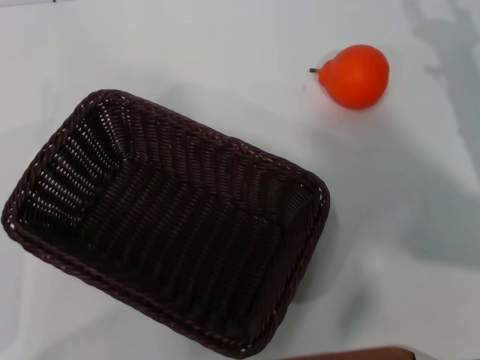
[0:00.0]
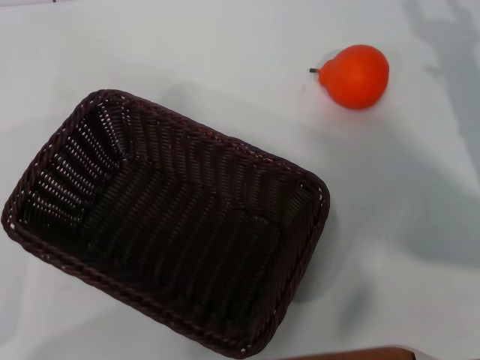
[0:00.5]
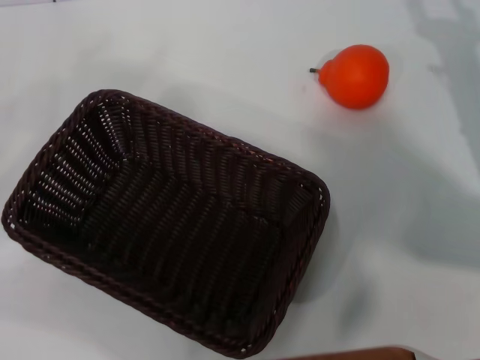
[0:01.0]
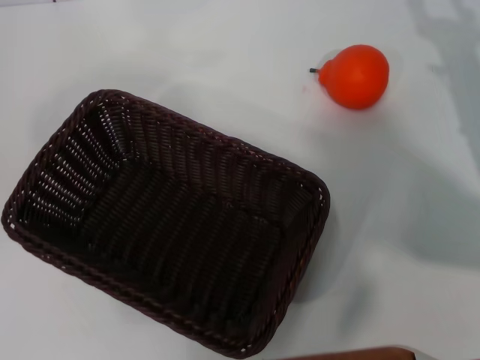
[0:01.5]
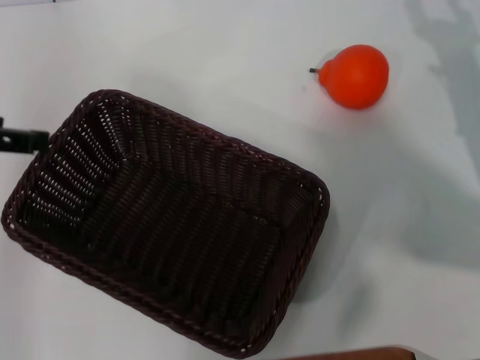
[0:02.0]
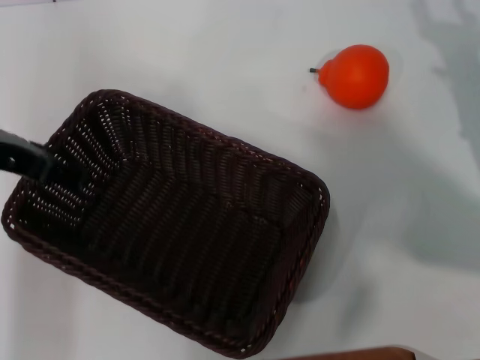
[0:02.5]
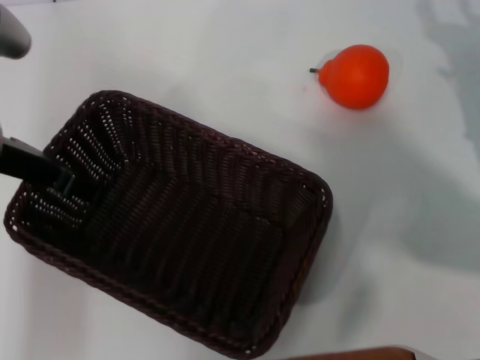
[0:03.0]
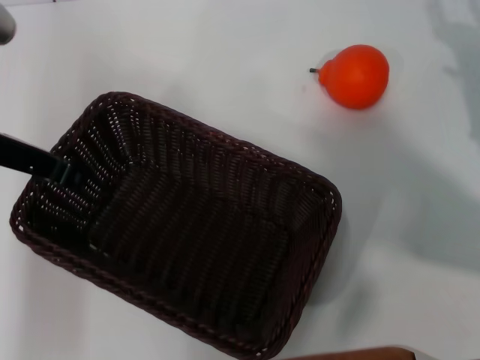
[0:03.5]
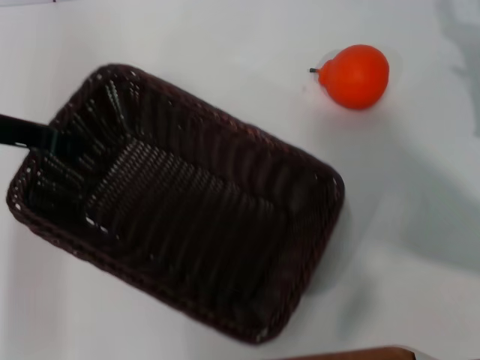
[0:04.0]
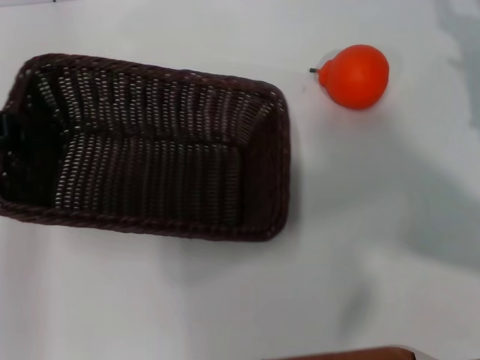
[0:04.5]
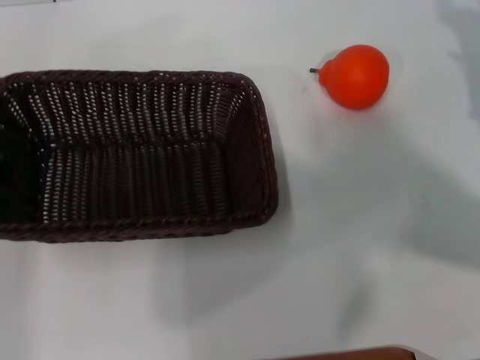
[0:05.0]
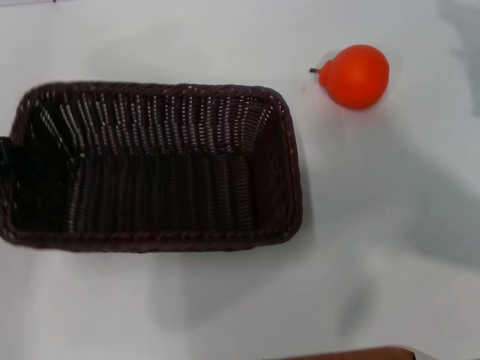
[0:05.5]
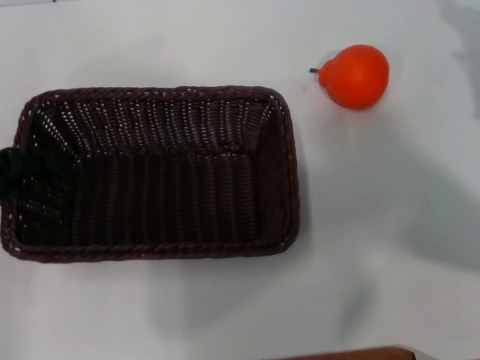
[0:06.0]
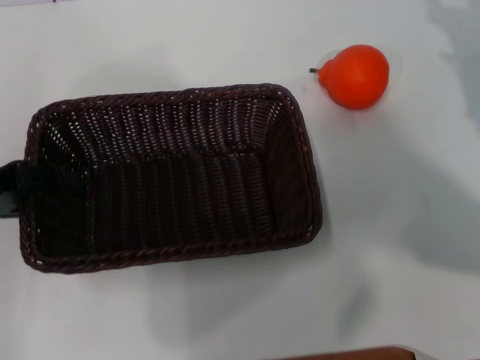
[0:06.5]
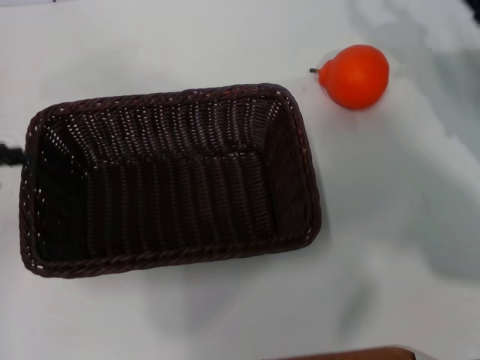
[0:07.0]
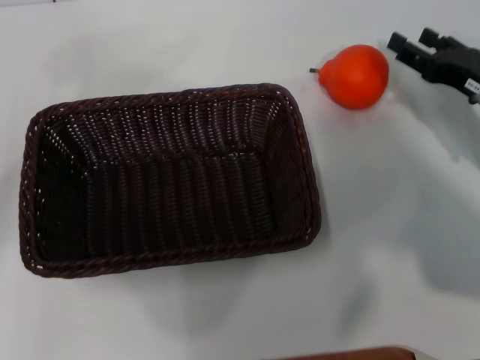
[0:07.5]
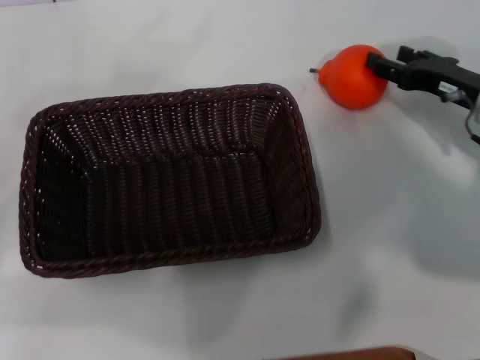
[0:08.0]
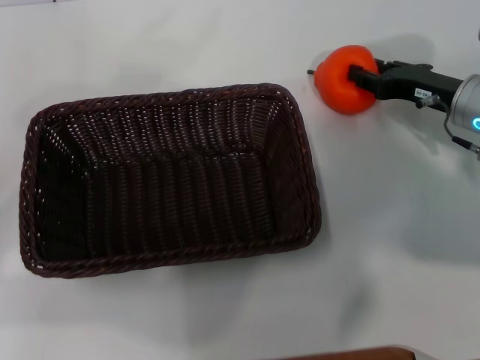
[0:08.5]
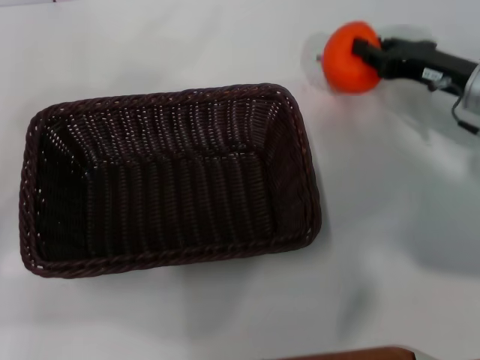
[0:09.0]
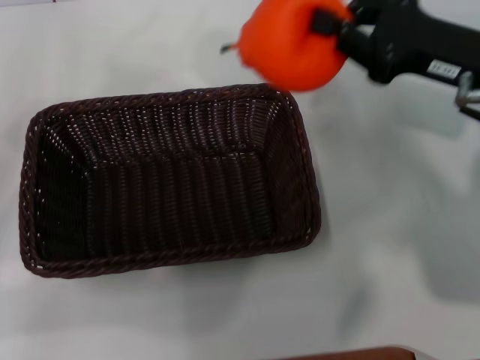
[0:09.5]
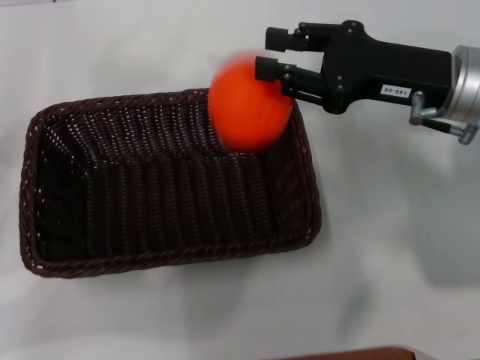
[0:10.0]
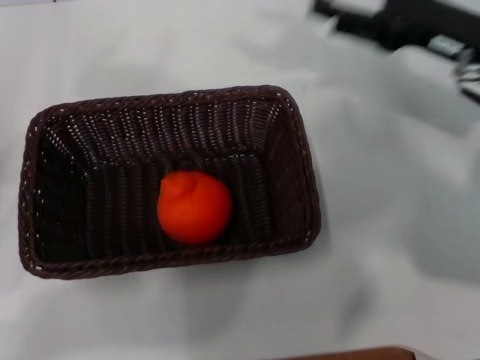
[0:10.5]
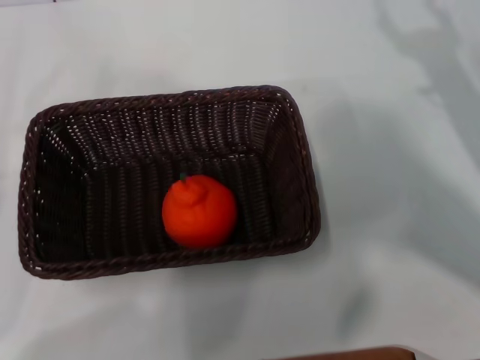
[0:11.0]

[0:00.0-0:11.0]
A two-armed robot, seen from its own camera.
Task of the whole recording: the left gripper pick up the black basket and place it horizontally in the middle of the table, the right gripper pick up the orange and place it into the black basket.
Step, 0:00.0 to 0:04.0: Pick up the dark basket with the left gripper.
Step, 0:04.5 to 0:06.5: Place the dark basket in the center of view with the left gripper.
Step, 0:07.0 to 0:09.0: Pick up the orange with the right gripper.
Step, 0:09.5 to 0:10.0: Place the orange into the dark basket with the right gripper.
0:00.0 to 0:02.0: The left gripper heads upward and forward, covering approximately 20 cm.
0:02.0 to 0:03.5: The left gripper shifts approximately 5 cm to the right, and closes its fingers.
0:03.5 to 0:05.5: The left gripper heads to the left, covering roughly 5 cm.
0:05.5 to 0:07.5: The left gripper moves to the left, some 10 cm, and opens, while the right gripper changes place by roughly 5 cm.
0:07.5 to 0:09.0: The right gripper closes up.
0:09.0 to 0:11.0: The right gripper shifts about 10 cm backward and to the right, and opens, while the left gripper shifts some 5 cm downward.

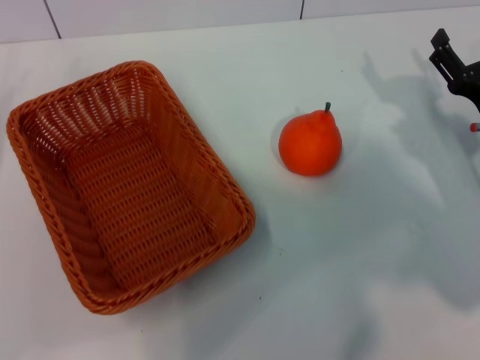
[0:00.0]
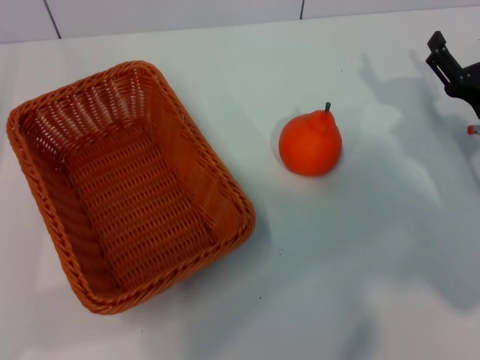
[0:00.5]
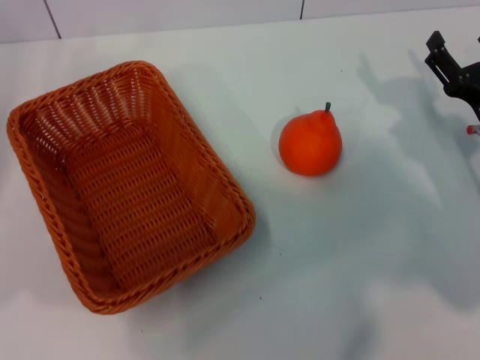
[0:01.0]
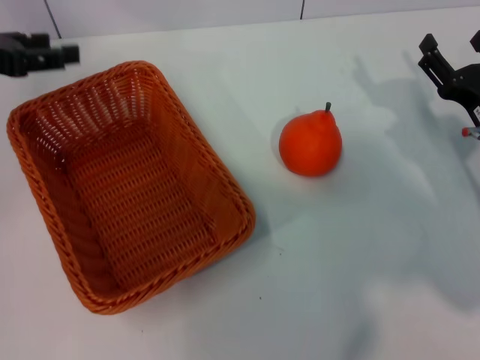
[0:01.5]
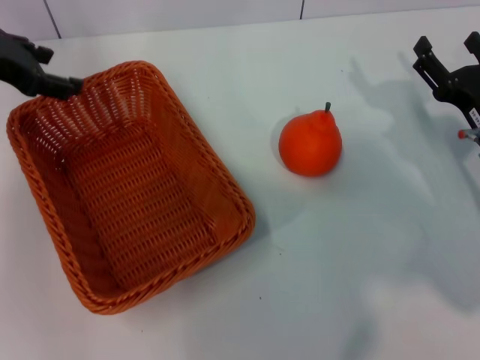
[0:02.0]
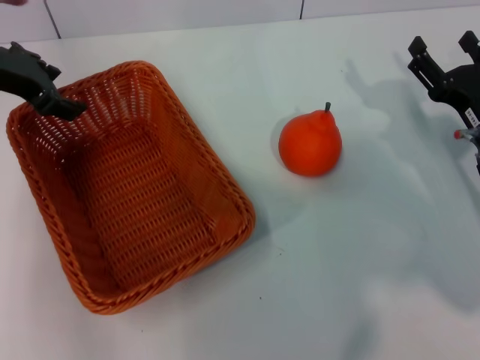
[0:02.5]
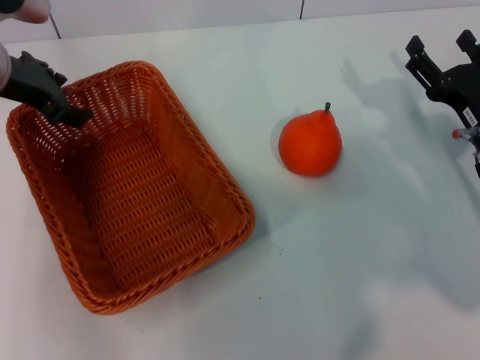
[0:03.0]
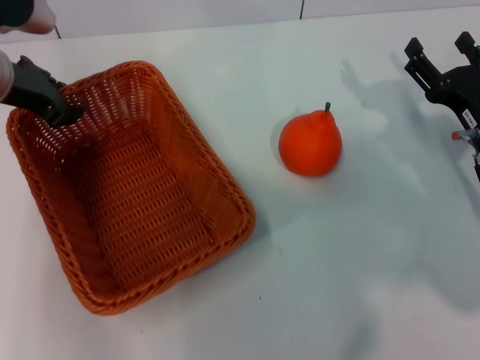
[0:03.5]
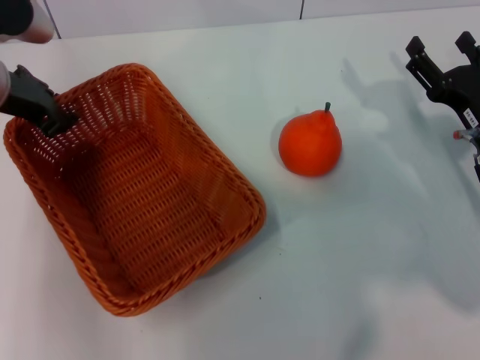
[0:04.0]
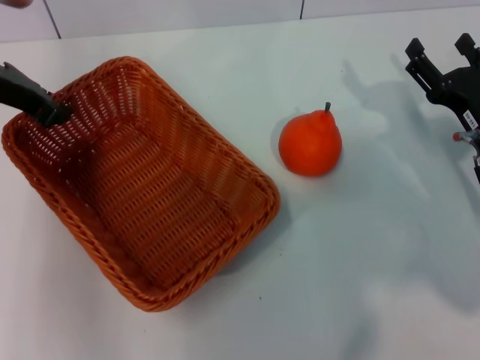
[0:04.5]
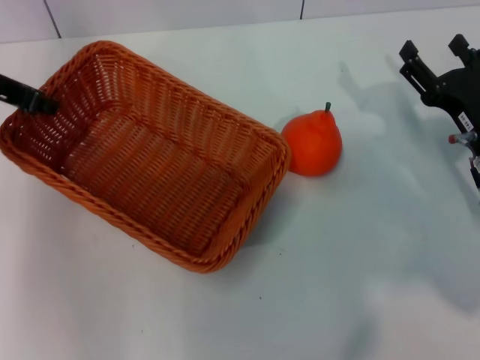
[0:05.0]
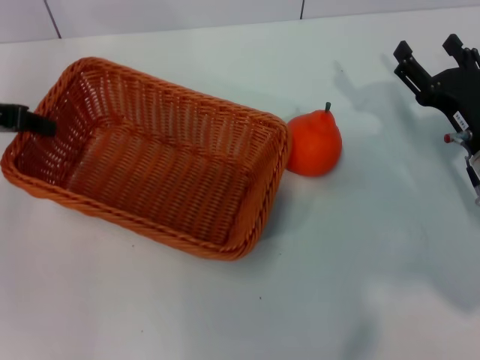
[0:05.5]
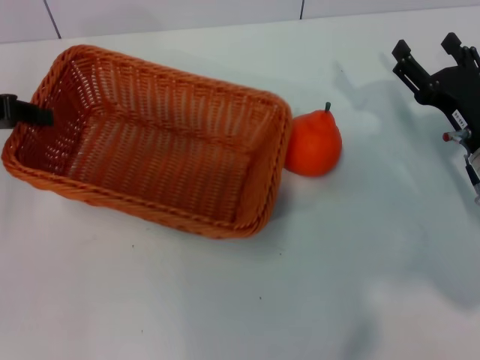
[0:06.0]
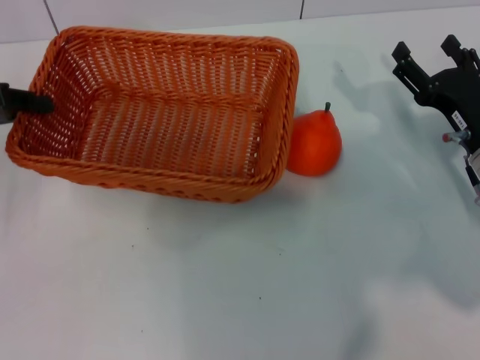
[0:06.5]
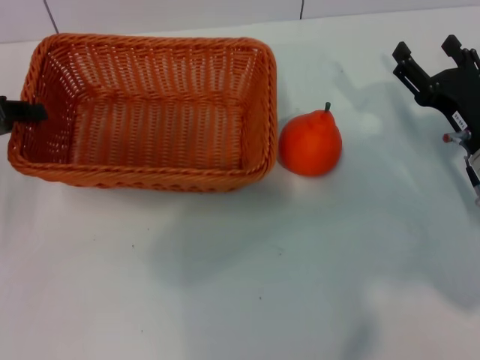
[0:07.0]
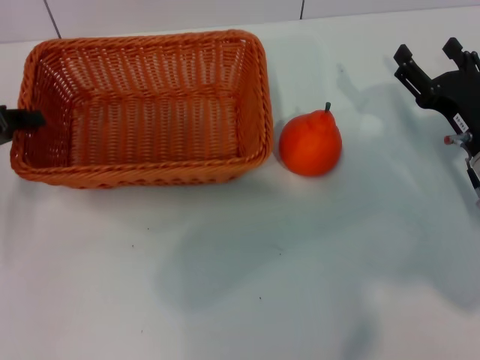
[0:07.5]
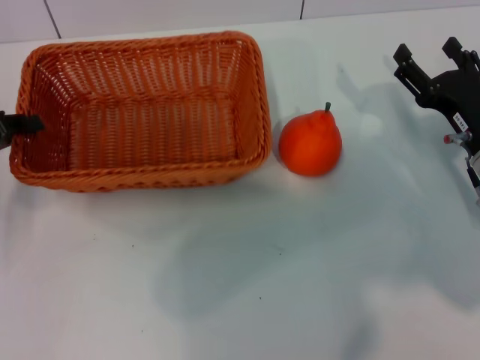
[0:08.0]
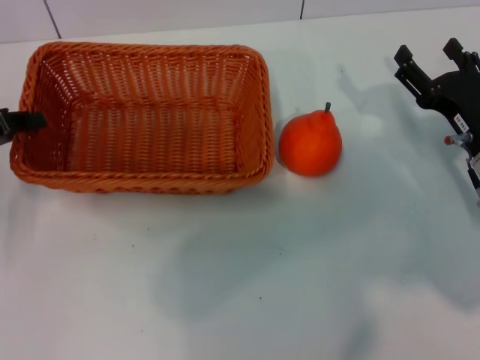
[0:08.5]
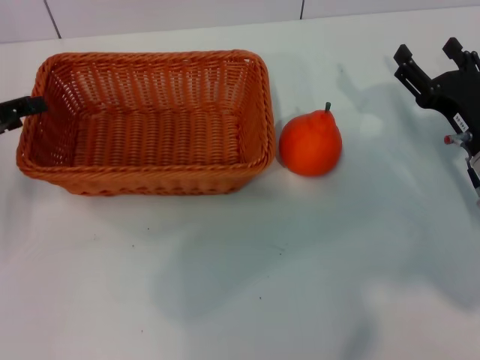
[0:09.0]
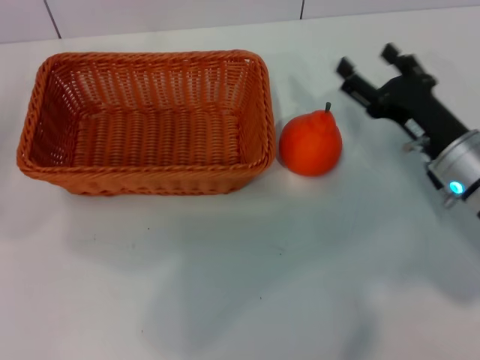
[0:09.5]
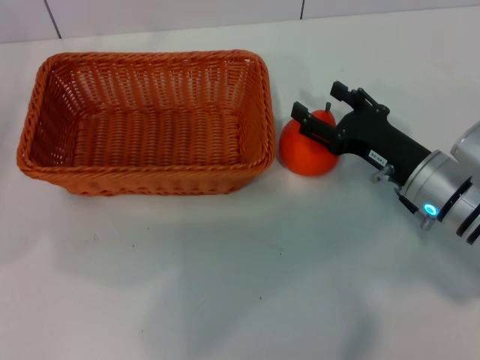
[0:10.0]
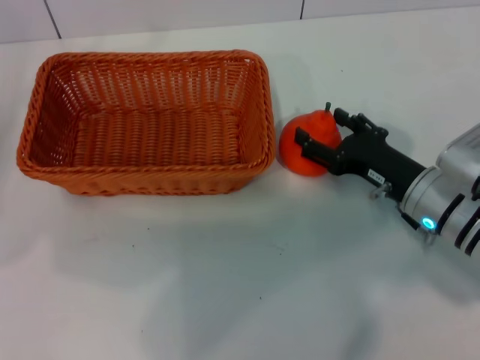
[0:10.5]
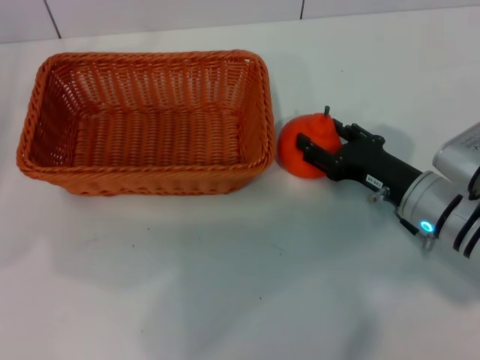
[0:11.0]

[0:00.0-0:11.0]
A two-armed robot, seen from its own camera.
Task of the whole recording: the left gripper pick up the yellow basket and place it horizontally in the middle of the table, the right gripper pick up the orange and place it into the yellow basket.
Step, 0:00.0 to 0:05.0: Pick up the light basket with the left gripper.
Step, 0:05.5 to 0:09.0: Place the light basket in the center of view with the left gripper.
0:00.0 to 0:02.0: The left gripper shifts some 20 cm upward, forward and to the right.
0:02.0 to 0:03.5: The left gripper moves some 5 cm.
0:03.5 to 0:05.5: The left gripper moves to the left, some 10 cm, and closes its fingers.
0:05.5 to 0:07.5: The left gripper shifts some 10 cm backward and downward.
0:07.5 to 0:09.0: The left gripper opens.
0:09.0 to 0:11.0: The left gripper shifts by approximately 5 cm, and opens. Meanwhile the right gripper heads to the left, covering roughly 5 cm.

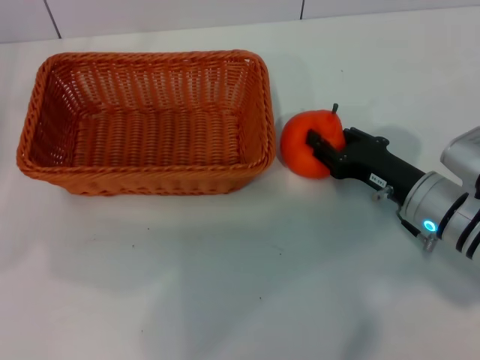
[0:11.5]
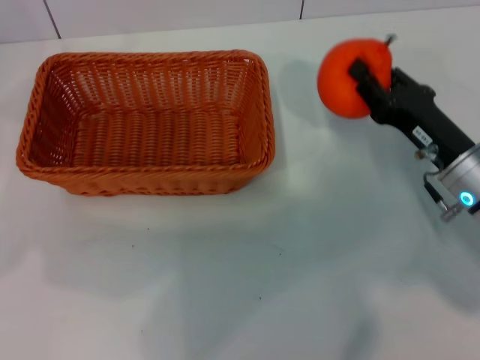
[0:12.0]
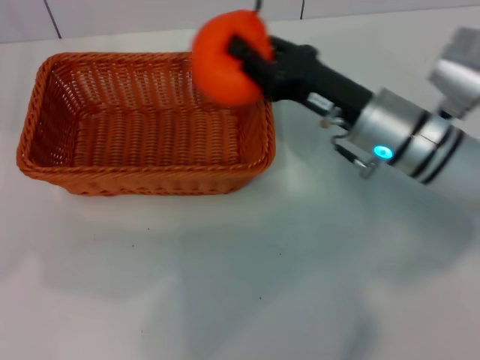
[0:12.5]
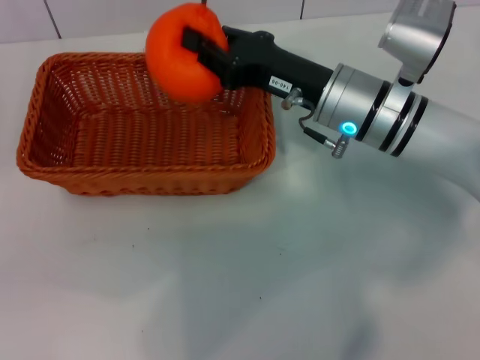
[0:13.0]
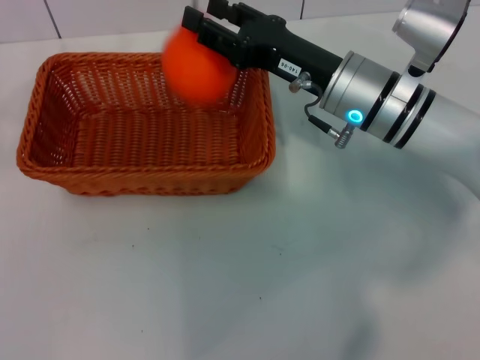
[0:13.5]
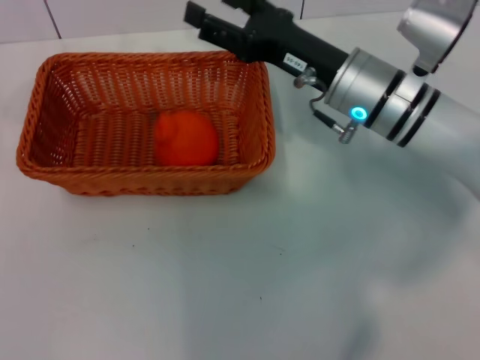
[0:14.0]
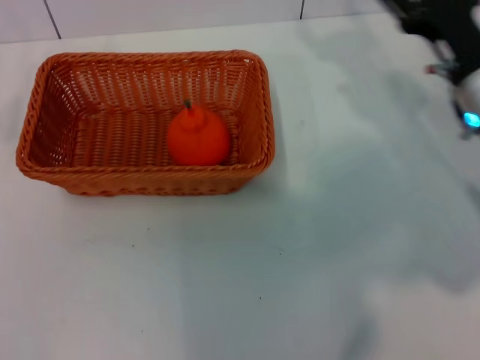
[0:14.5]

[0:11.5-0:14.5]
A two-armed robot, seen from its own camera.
Task of the whole recording: the left gripper pick up the yellow basket and place it horizontally in the middle of the table, the right gripper pick up the orange and place it into the yellow basket.
Step, 0:12.5 to 0:14.0: Place the orange into the light basket with the right gripper.
0:11.5 to 0:13.0: The right gripper moves upward, to the left and forward, roughly 15 cm, and closes up.
0:13.0 to 0:14.5: The right gripper shifts approximately 10 cm to the right, and opens its fingers.
